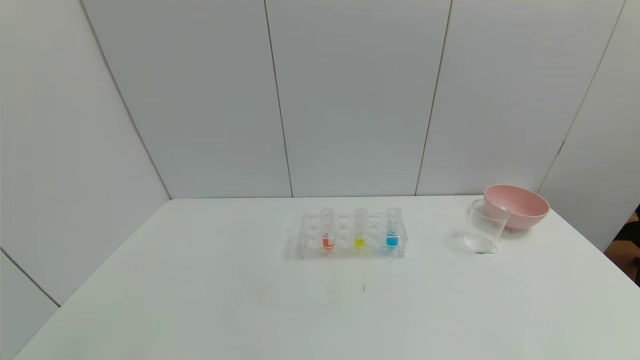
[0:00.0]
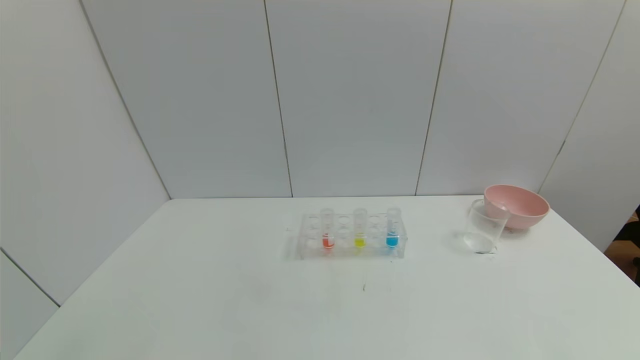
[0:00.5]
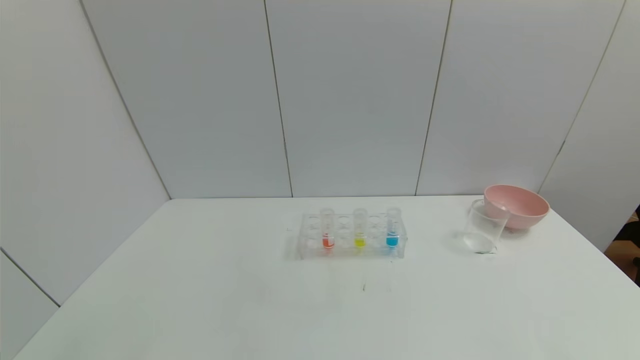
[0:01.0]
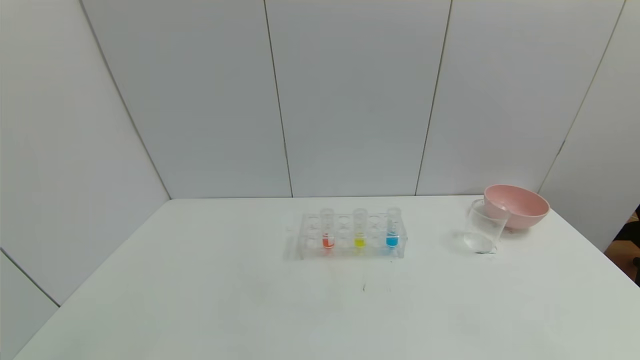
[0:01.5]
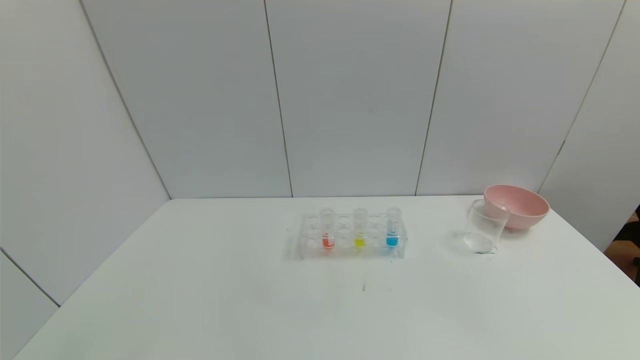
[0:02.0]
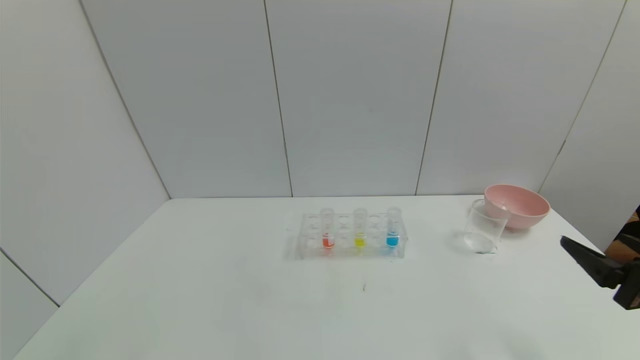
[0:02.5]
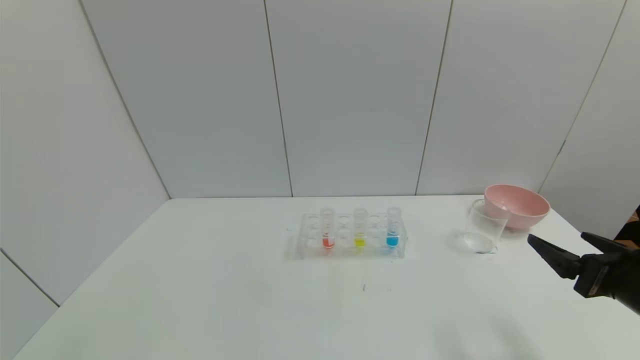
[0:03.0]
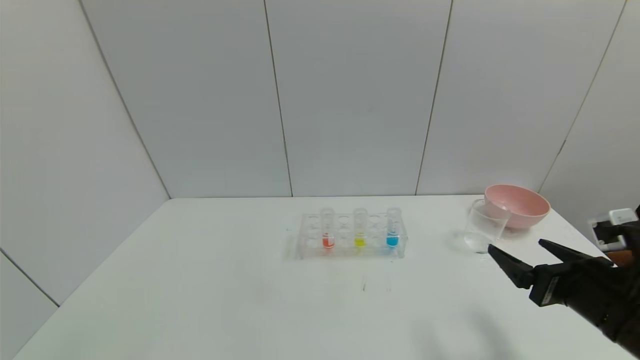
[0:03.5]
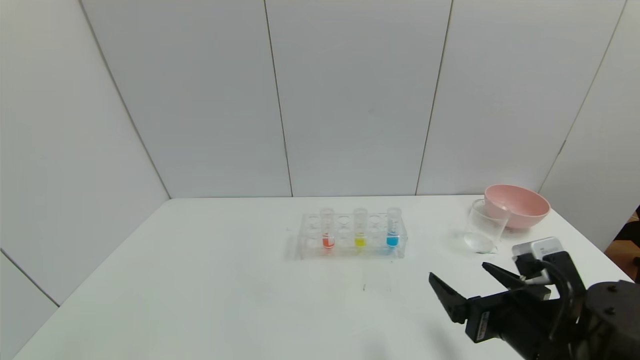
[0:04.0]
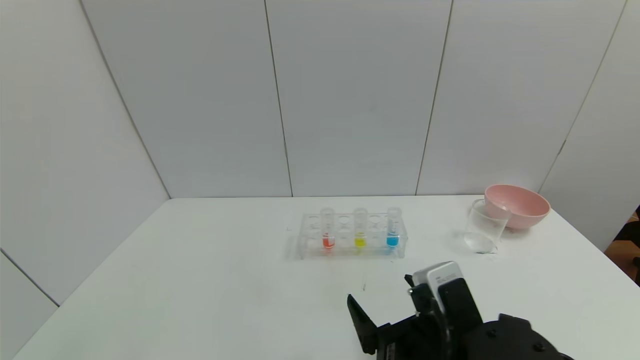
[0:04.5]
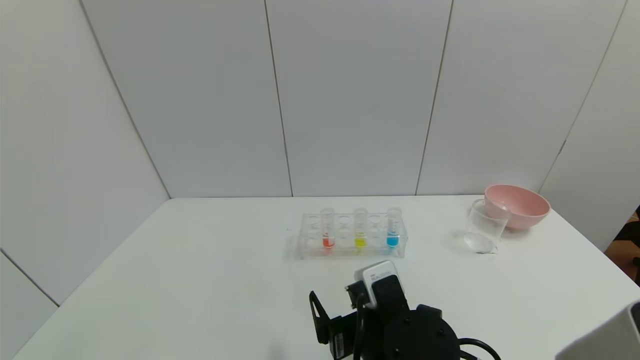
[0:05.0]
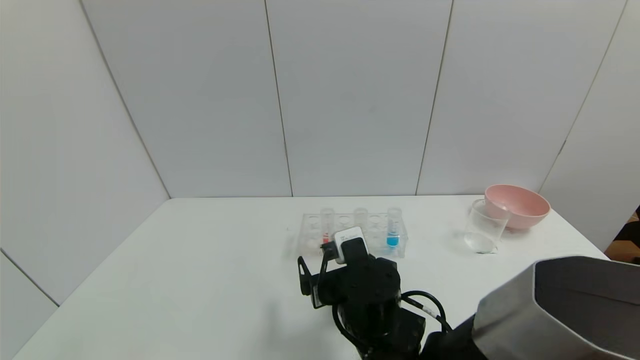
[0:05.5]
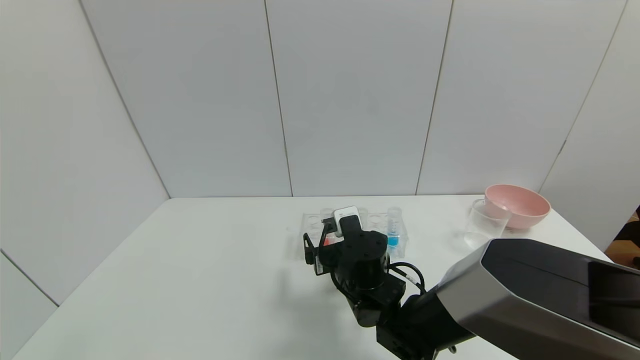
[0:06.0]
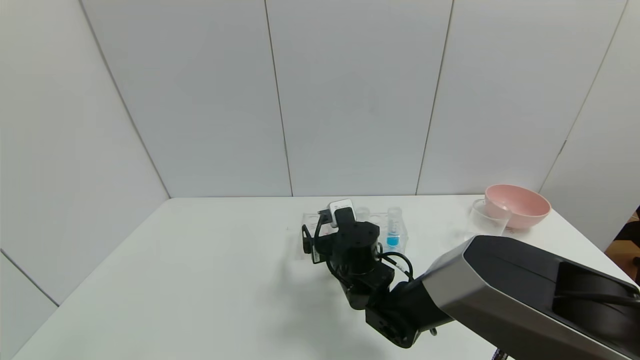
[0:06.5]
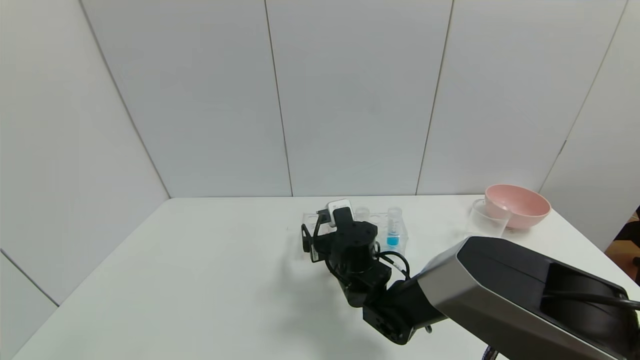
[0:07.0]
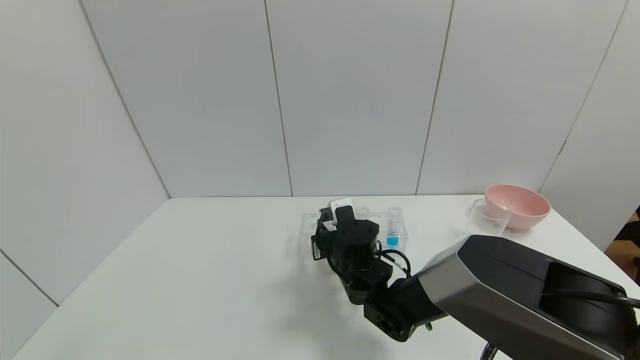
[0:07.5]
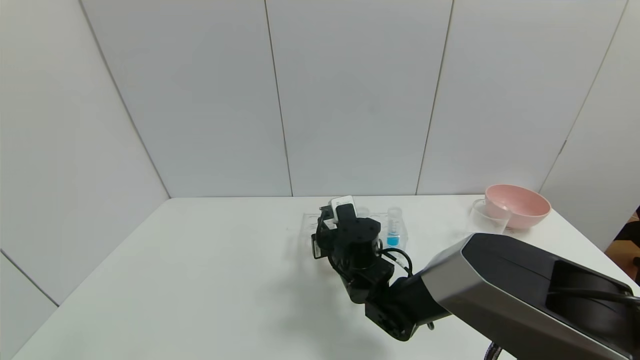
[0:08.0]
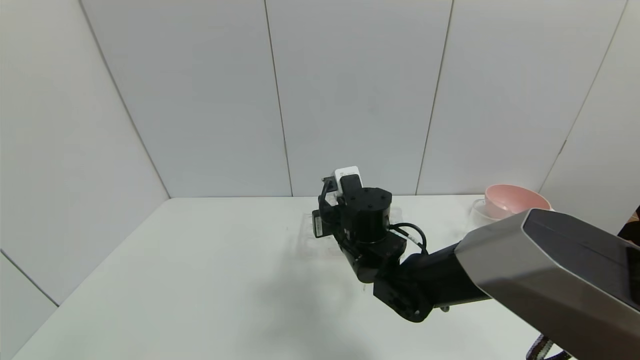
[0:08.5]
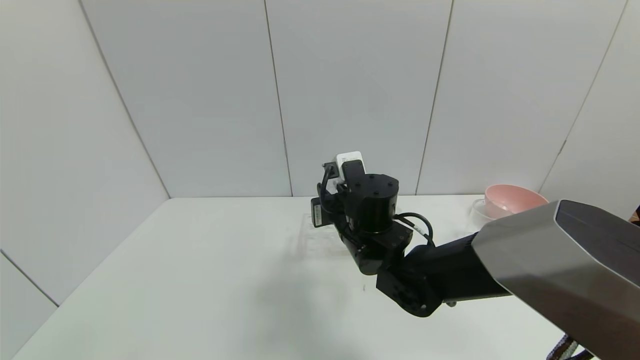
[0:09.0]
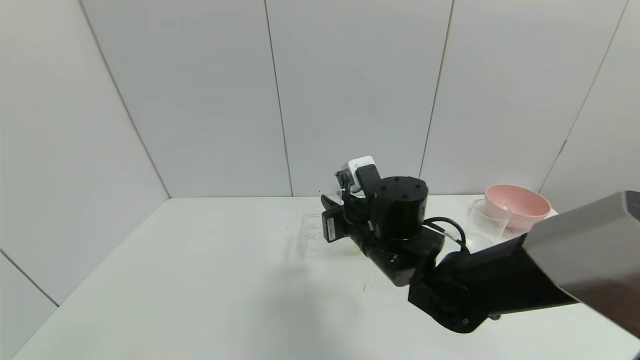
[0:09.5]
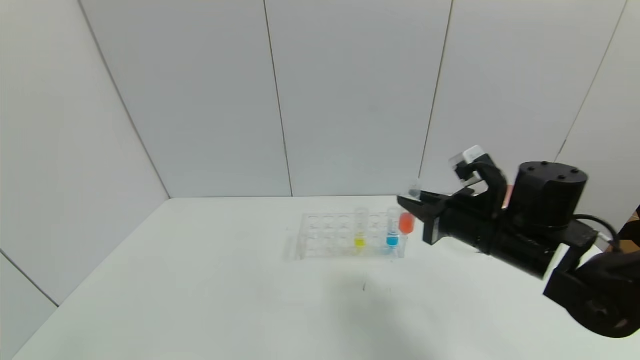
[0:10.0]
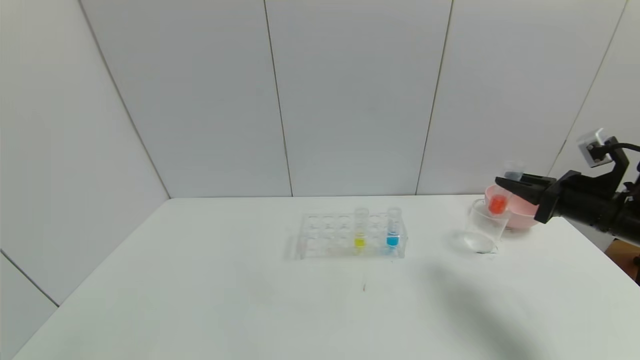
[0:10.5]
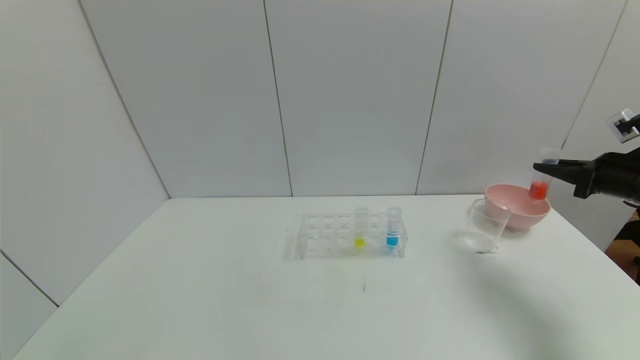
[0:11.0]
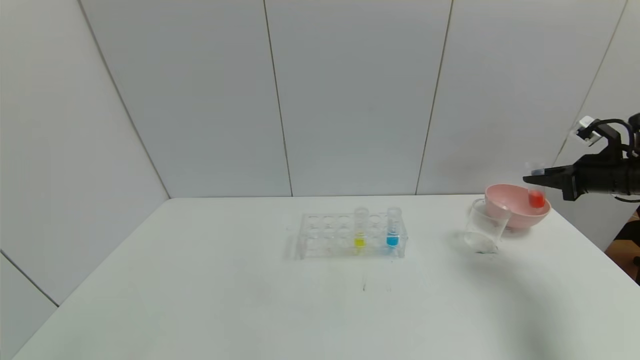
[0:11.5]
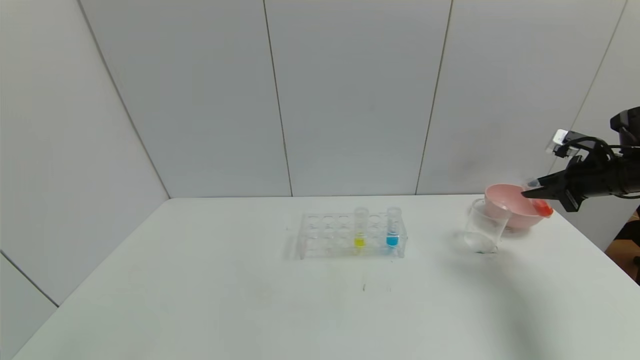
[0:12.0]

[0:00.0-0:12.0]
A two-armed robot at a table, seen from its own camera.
Task of the whole recording: pick up the test tube with red pigment and the test tube with blue pigment by grippers and pour them into the container.
Step, 0:00.0 to 0:10.0: Pick up the test tube containing the red reagent with right gripper.
0:02.0 to 0:04.0: The right gripper shifts roughly 20 cm to the left, forward and downward.
0:04.0 to 0:06.0: The right gripper is displaced to the left and forward by approximately 25 cm.
0:06.0 to 0:08.0: The right gripper closes.
0:08.0 to 0:10.0: The right gripper is displaced to the right and upward by some 20 cm.
0:10.0 to 0:12.0: The right gripper is displaced to the right by some 25 cm.

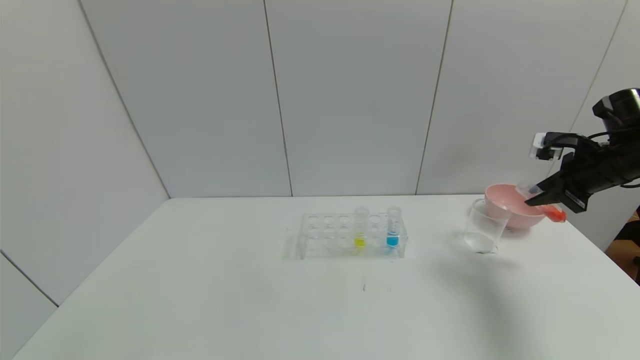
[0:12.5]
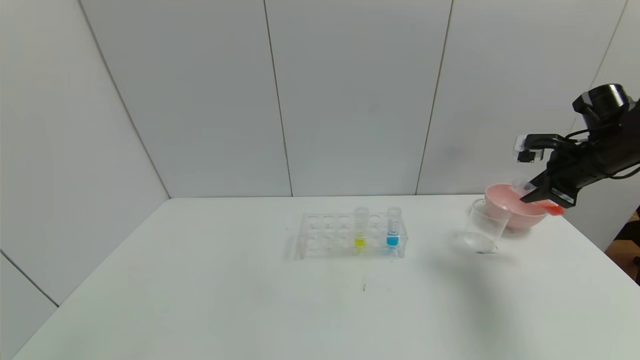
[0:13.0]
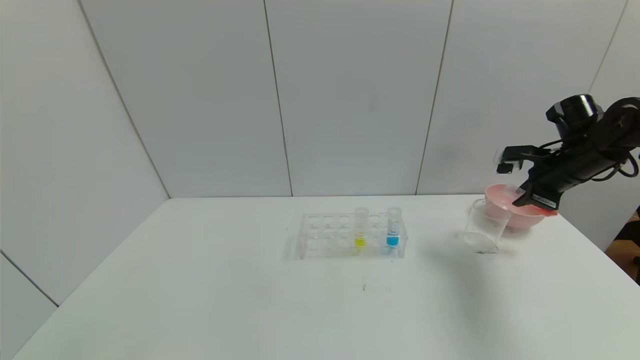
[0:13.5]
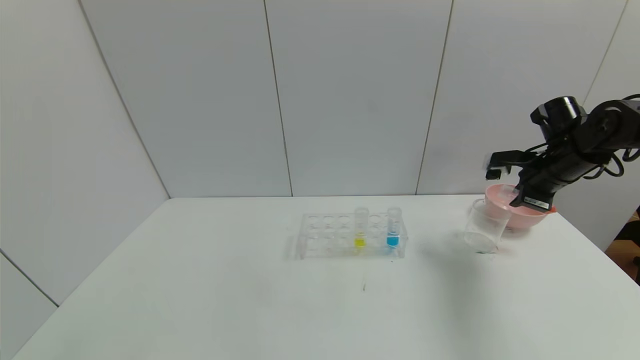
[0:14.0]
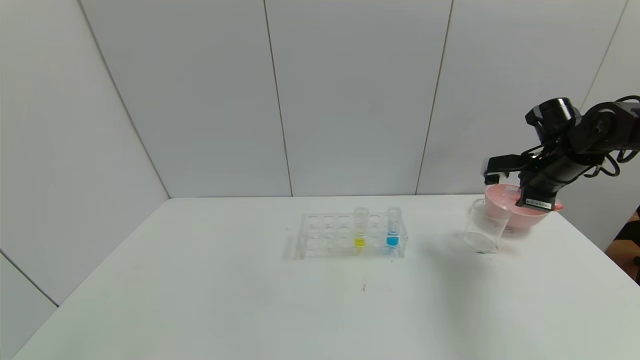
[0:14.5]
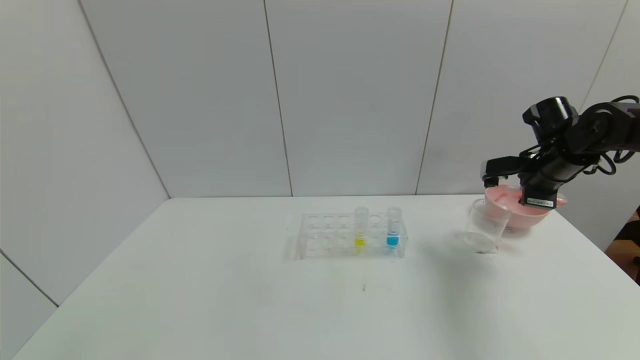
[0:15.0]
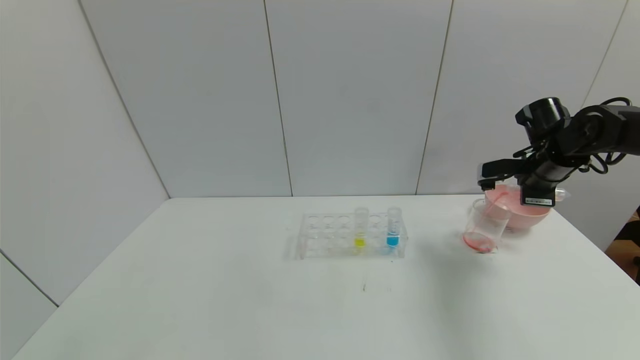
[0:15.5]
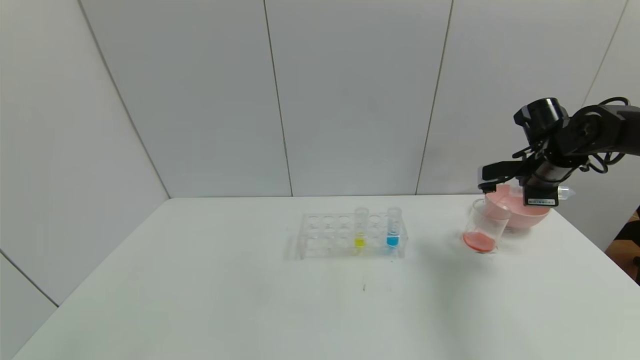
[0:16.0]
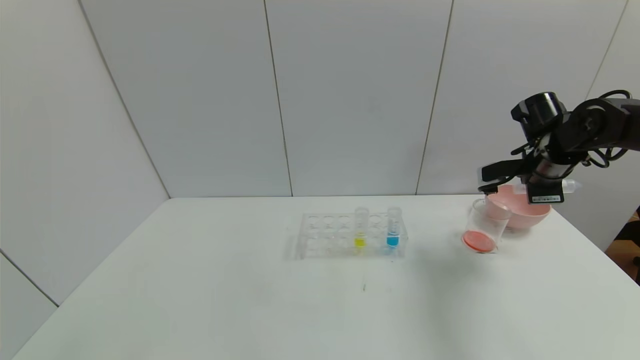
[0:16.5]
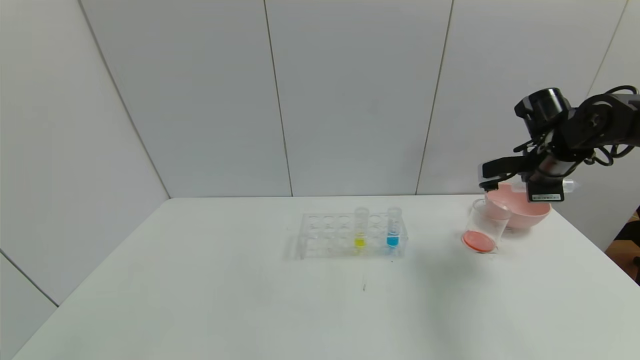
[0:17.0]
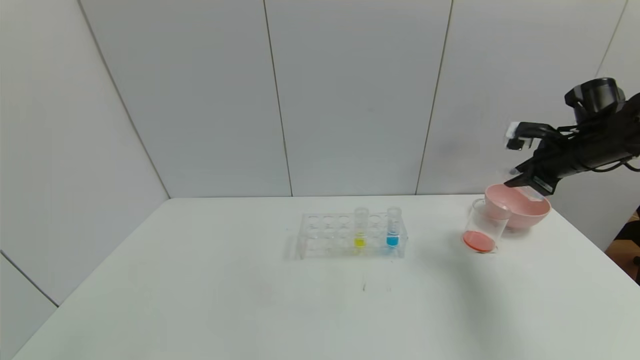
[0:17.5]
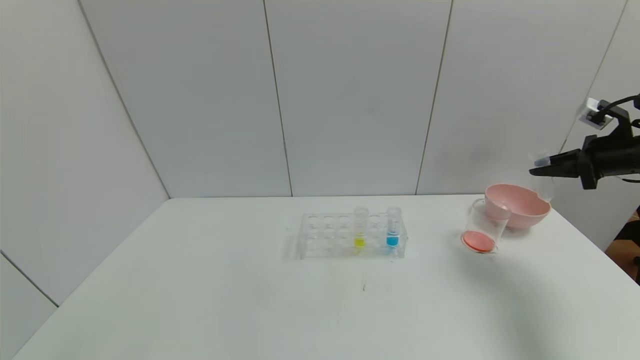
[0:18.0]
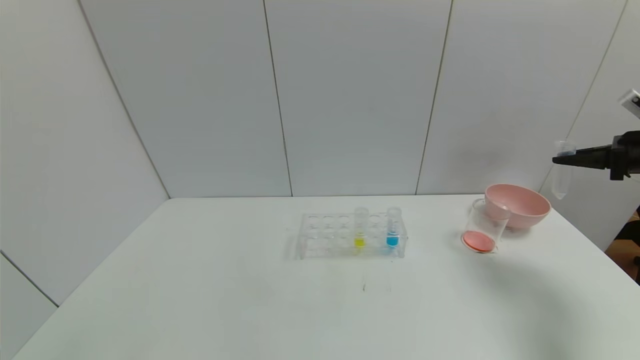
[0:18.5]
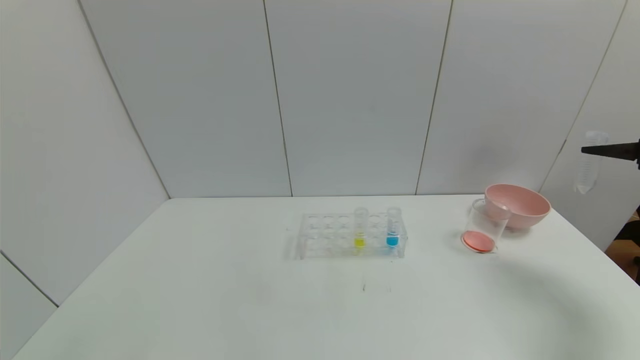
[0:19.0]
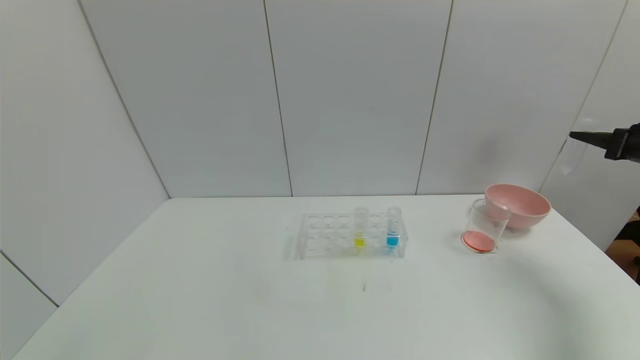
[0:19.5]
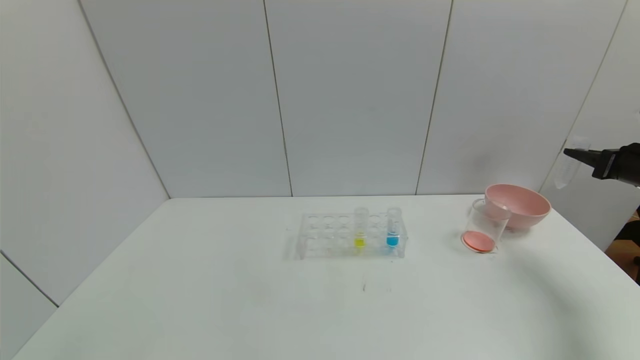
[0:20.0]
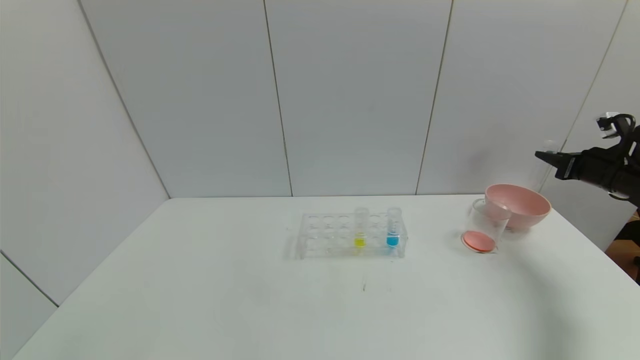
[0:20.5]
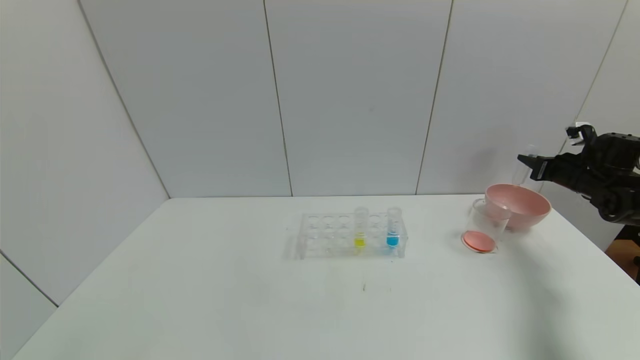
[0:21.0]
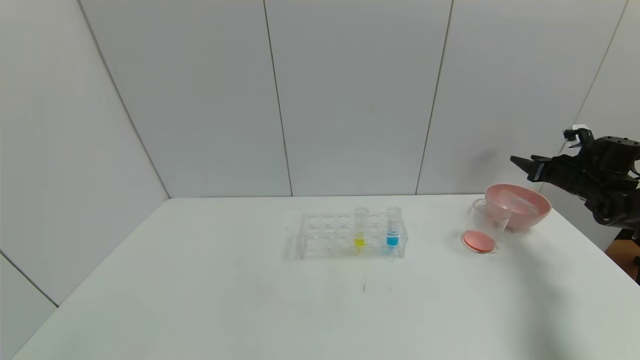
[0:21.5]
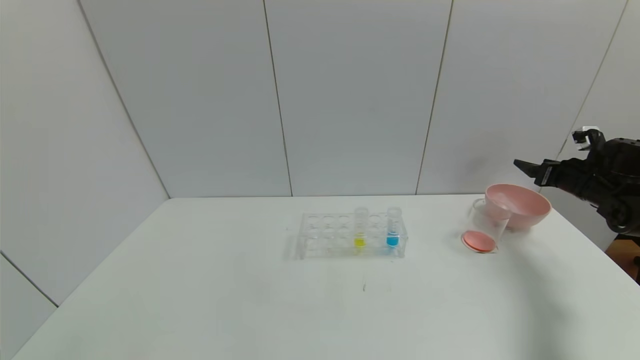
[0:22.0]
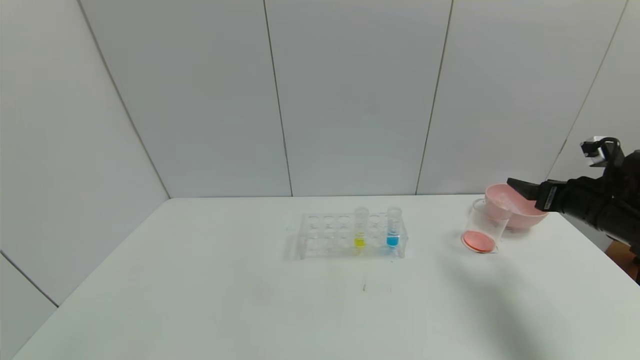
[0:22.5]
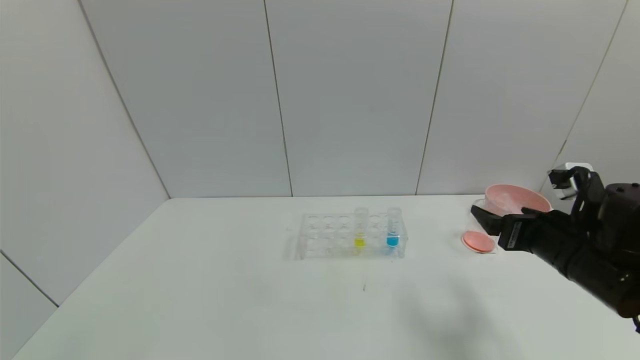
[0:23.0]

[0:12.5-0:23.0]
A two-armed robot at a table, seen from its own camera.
Task of the whole recording: pick up the test tube with red pigment and the test tube with blue pigment by grippers and pour them into the container.
Step, 0:12.5 to 0:19.0: Pour the red reagent into the graduated cylinder with right gripper.
Step, 0:19.5 to 0:22.0: Place the test tube into the bowl with right gripper.
0:12.5 to 0:14.5: The right gripper is displaced to the left by roughly 5 cm.
0:16.5 to 0:19.0: The right gripper moves to the right, roughly 20 cm.
0:19.0 to 0:21.0: The right gripper moves forward and downward, approximately 15 cm.
0:21.0 to 0:23.0: The right gripper travels backward and to the left by about 30 cm, and opens up.
